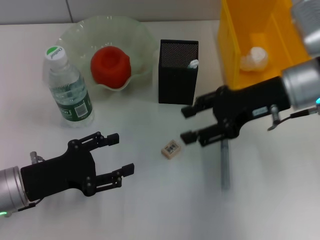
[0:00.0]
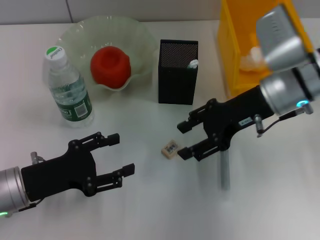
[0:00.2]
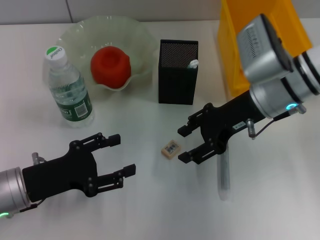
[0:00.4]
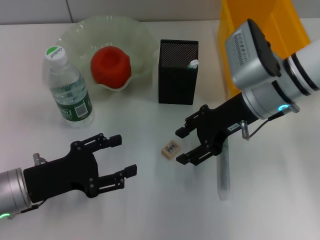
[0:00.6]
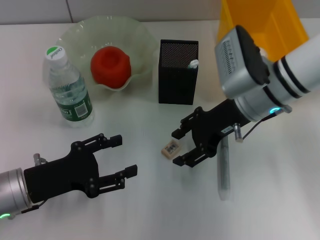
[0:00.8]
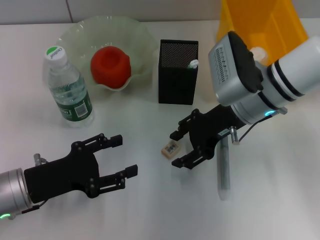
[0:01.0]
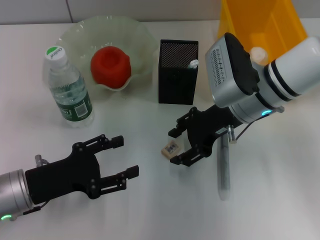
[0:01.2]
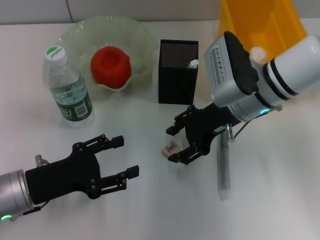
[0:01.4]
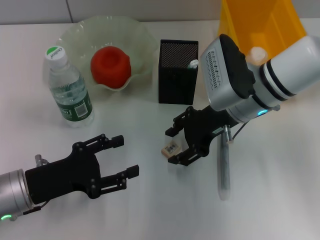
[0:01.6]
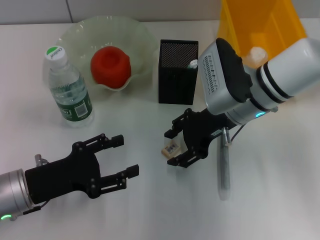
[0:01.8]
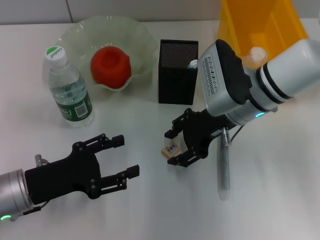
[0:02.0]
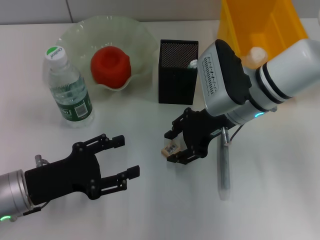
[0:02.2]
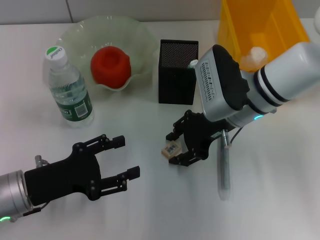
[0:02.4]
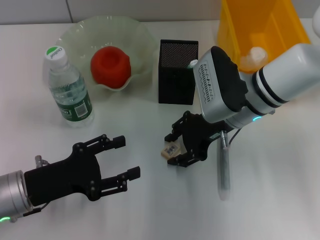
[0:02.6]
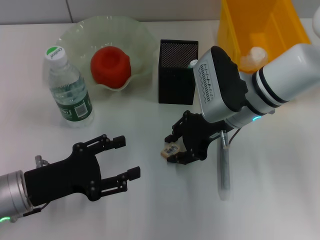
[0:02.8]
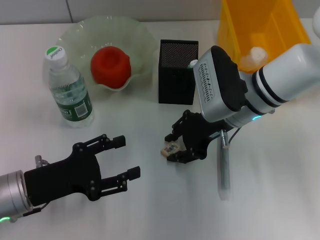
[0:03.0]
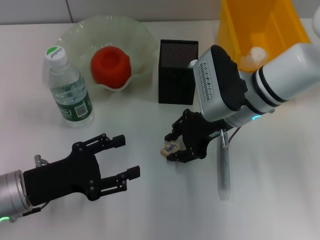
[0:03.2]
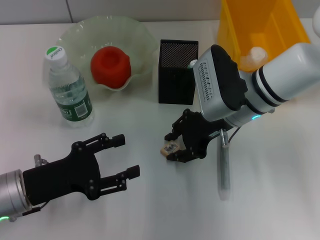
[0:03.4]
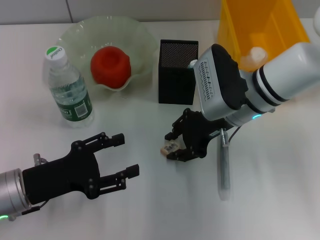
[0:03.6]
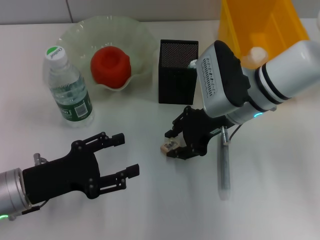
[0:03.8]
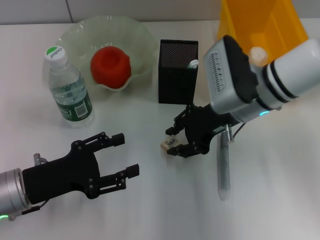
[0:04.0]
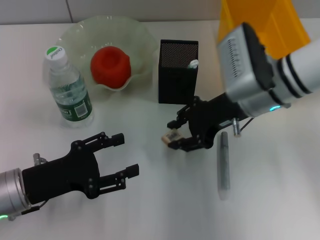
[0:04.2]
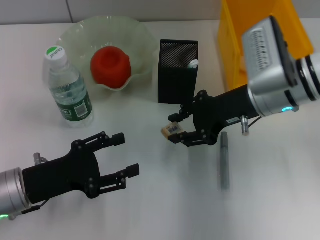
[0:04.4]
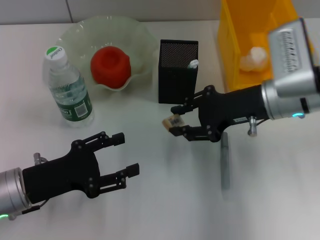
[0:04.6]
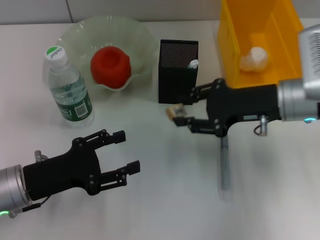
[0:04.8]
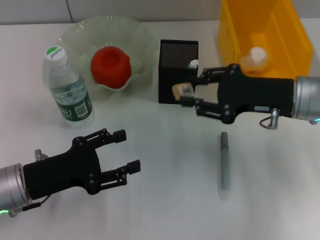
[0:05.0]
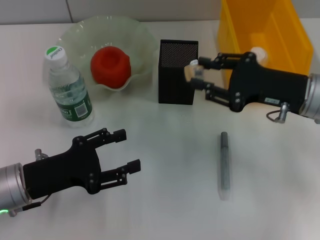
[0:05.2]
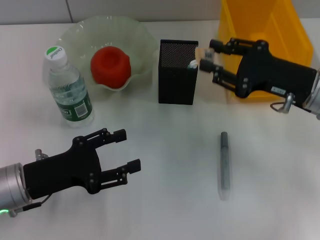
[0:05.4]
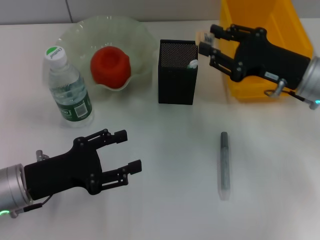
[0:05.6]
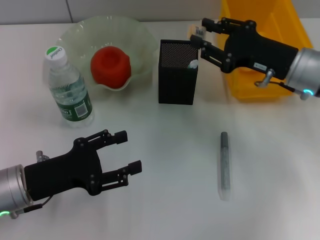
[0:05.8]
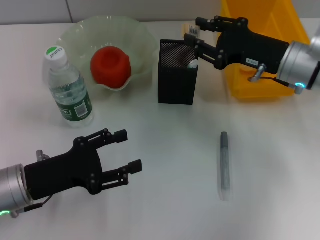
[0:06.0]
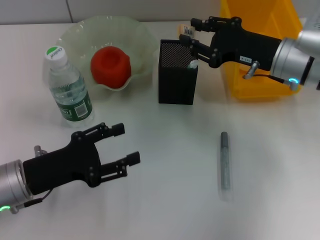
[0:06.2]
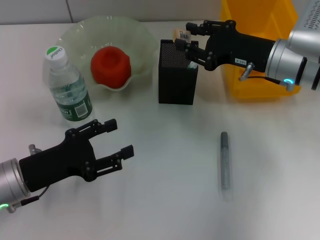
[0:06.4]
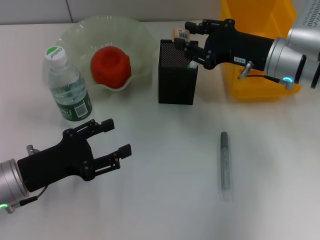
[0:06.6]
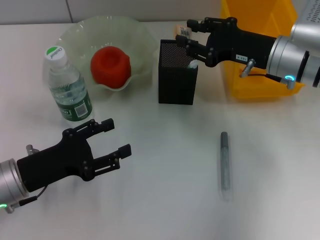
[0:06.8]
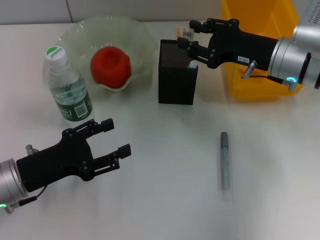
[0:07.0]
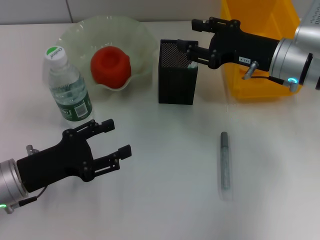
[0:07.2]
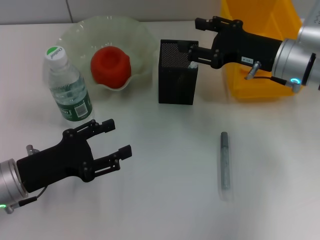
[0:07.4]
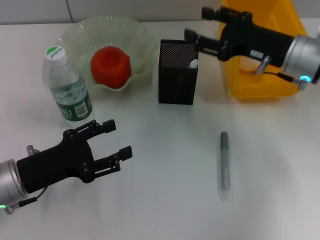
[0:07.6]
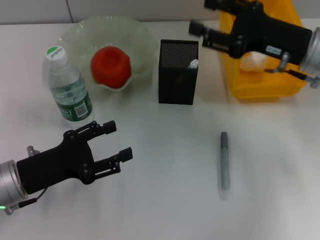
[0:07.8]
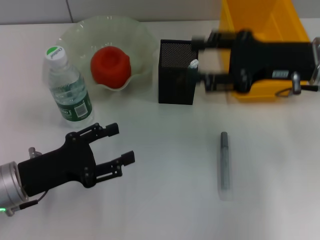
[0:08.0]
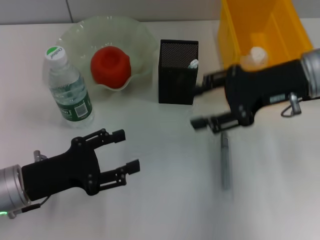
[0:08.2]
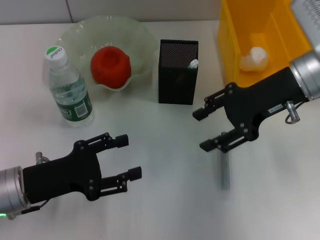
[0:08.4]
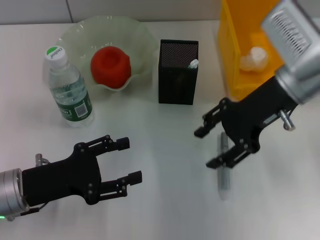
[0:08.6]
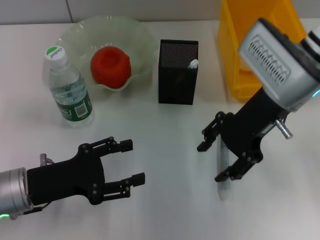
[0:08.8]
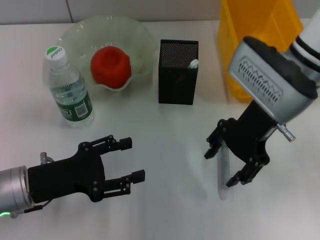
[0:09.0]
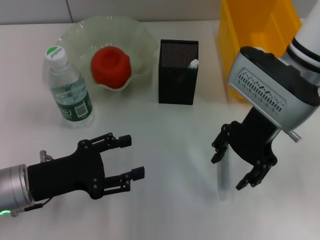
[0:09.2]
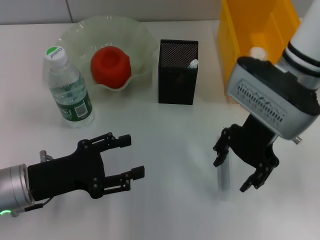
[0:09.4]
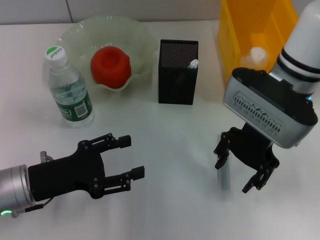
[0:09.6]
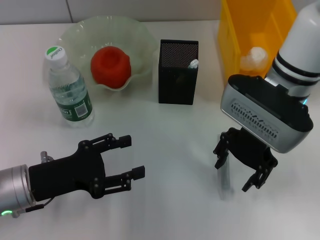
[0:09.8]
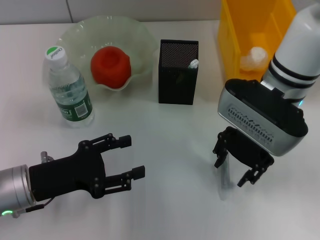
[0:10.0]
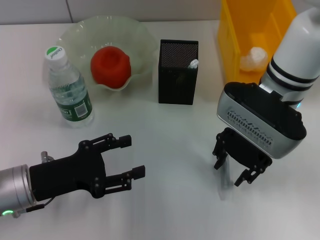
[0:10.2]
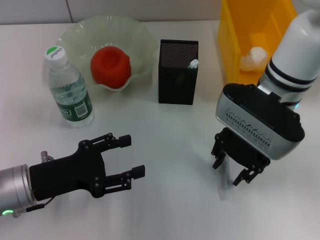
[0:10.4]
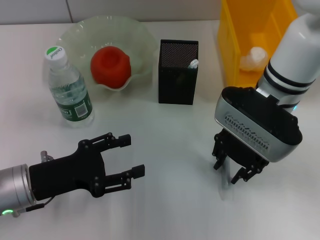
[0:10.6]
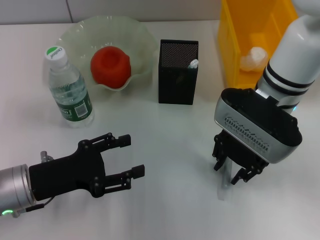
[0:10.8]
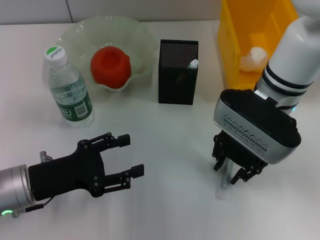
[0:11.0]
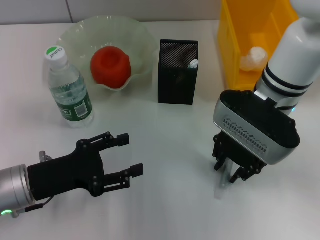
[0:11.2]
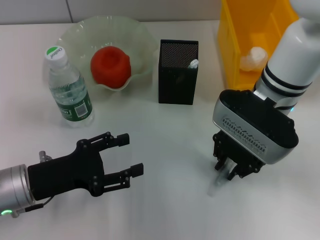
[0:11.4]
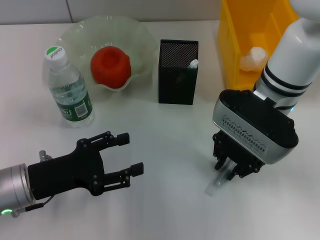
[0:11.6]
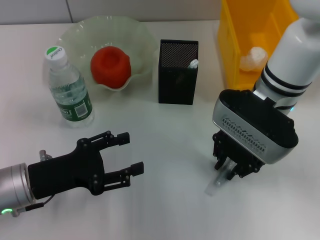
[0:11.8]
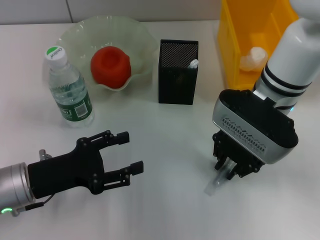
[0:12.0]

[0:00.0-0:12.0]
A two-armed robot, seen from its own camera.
Step, 0:00.0 to 0:03.4: Grab the eraser with the right hand.
Step, 0:03.8 to 0:07.8: Put the eraser into the pen holder with the right hand.
0:00.0 to 0:01.6: The right gripper moves to the left, approximately 5 cm.
0:01.6 to 0:03.0: The two grippers keep their place.
0:03.0 to 0:04.4: The right gripper ends up roughly 5 cm from where it was.
0:06.0 to 0:07.6: The right gripper opens its fingers.
0:07.6 to 0:09.0: The right gripper heads to the left, covering about 5 cm.
0:09.0 to 0:10.4: The grippers stay close to where they were, moving slightly.
0:10.4 to 0:12.0: Neither gripper changes place.

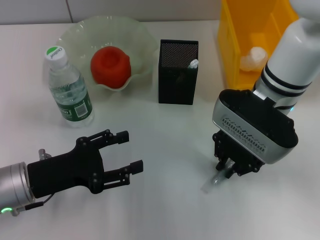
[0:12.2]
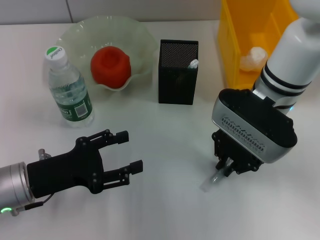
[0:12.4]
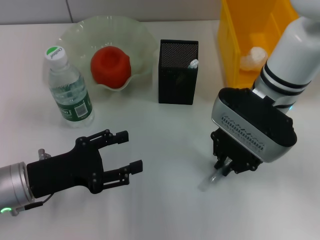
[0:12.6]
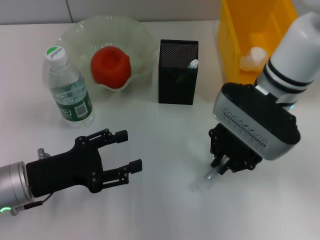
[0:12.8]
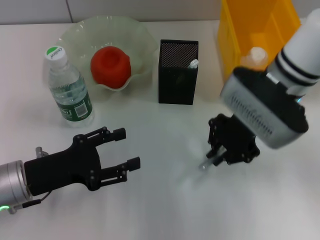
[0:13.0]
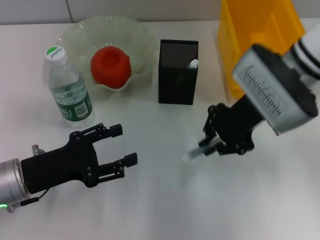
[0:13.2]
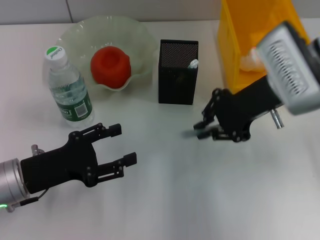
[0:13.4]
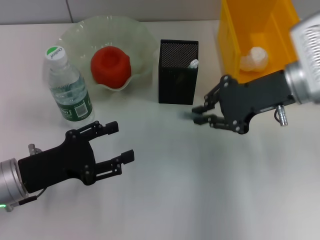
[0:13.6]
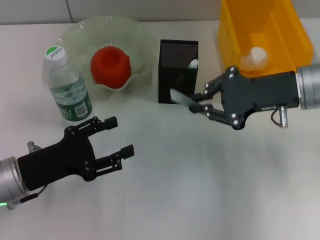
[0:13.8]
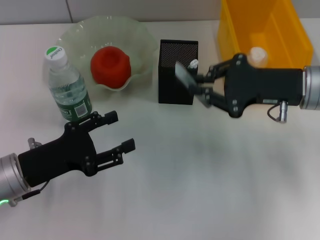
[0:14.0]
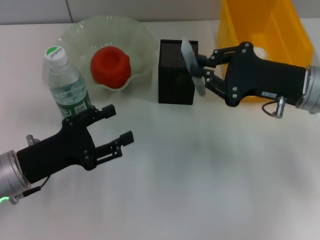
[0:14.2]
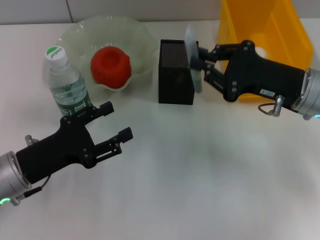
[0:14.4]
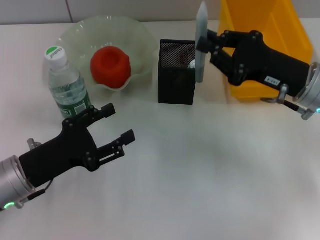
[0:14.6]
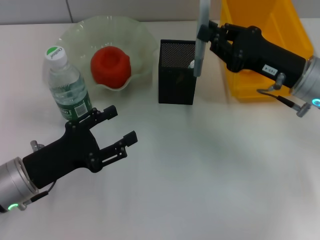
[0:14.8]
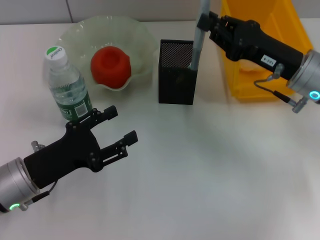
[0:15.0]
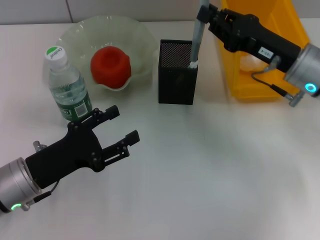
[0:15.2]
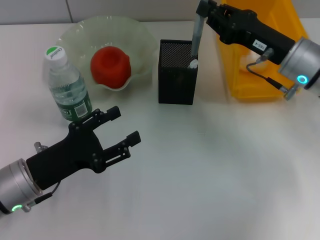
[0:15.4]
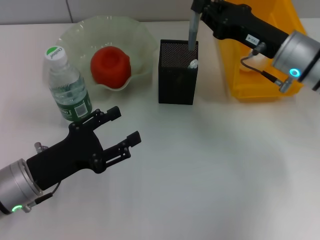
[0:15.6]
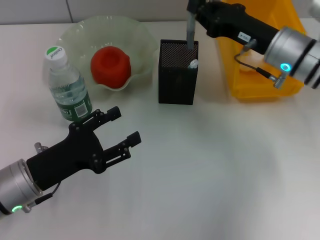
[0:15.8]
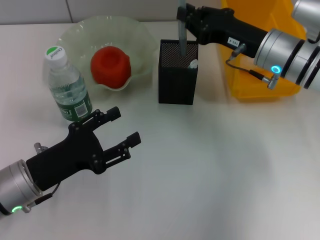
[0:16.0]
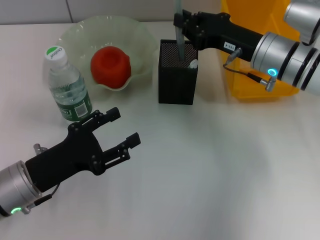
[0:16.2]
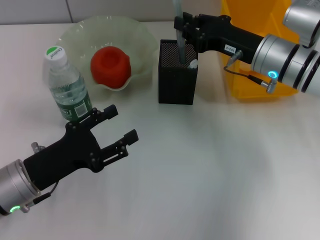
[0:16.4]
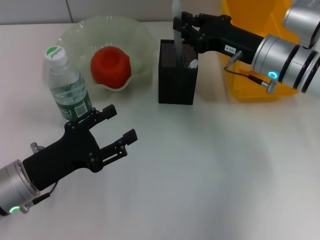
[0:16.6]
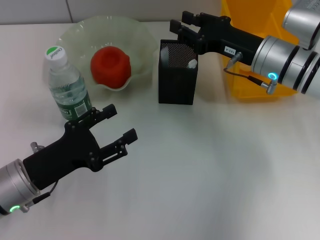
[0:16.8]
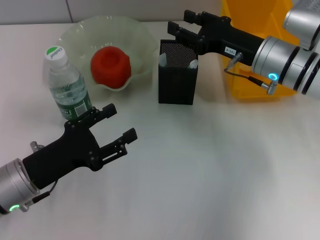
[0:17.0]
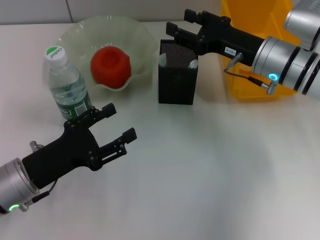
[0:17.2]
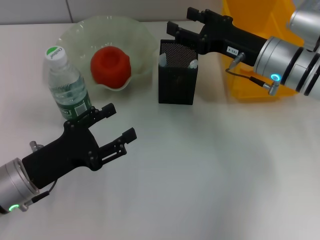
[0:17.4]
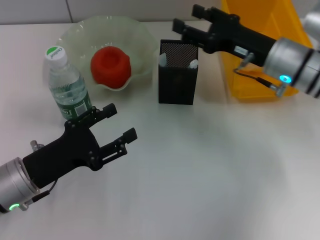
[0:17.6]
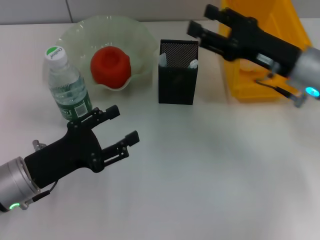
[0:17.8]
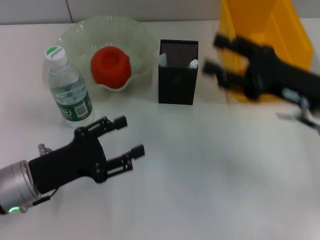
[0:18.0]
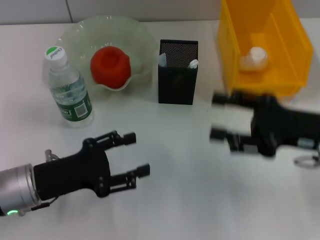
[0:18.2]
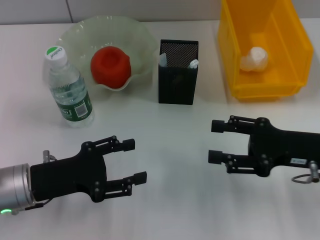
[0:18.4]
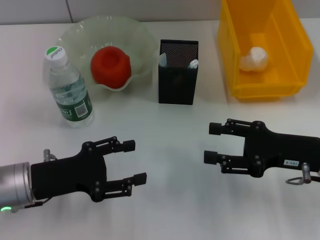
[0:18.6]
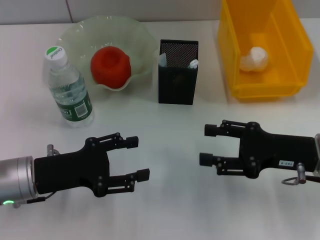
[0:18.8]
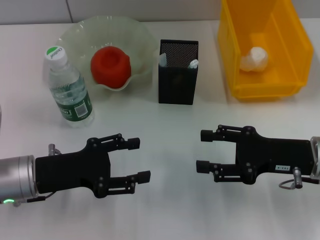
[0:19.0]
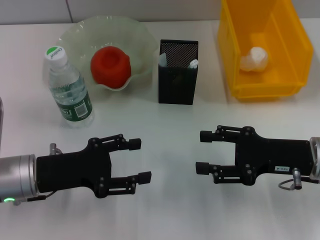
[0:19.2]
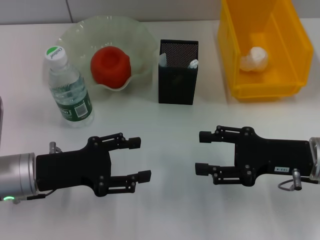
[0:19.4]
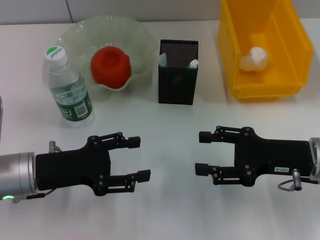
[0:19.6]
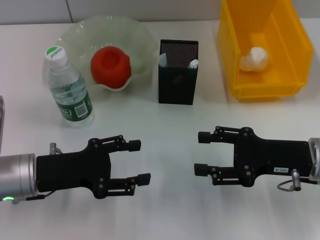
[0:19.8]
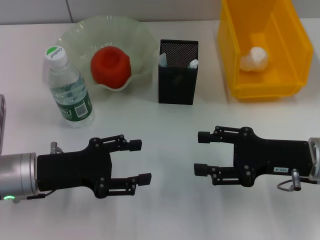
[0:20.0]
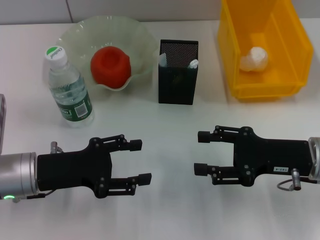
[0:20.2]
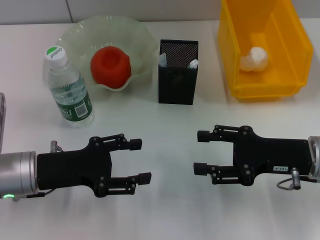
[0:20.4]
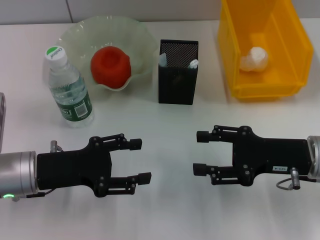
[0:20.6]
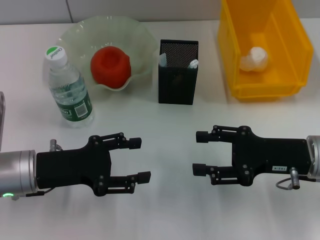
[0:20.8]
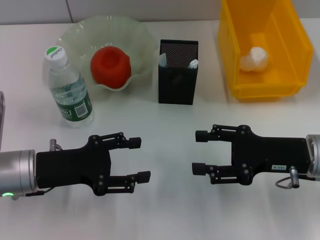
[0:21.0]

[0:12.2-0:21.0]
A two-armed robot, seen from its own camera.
Step, 0:12.6 to 0:17.2: Place the gray glue into the pen holder with the right hand.
0:12.2 to 0:13.6: The right gripper shifts roughly 10 cm to the right.
0:15.2 to 0:16.6: The right gripper ends up some 5 cm from where it was.
0:16.6 to 0:18.0: The right gripper moves backward and to the right, roughly 10 cm, and opens its fingers.
0:18.0 to 0:19.6: The right gripper changes place by roughly 5 cm.
0:19.6 to 0:21.0: The two grippers keep their place.
